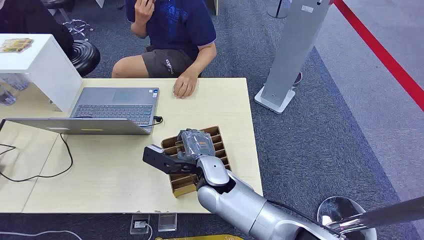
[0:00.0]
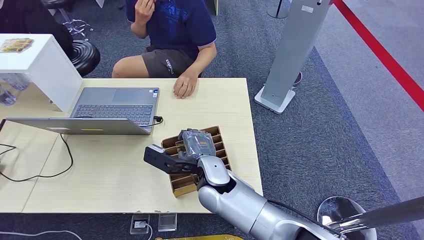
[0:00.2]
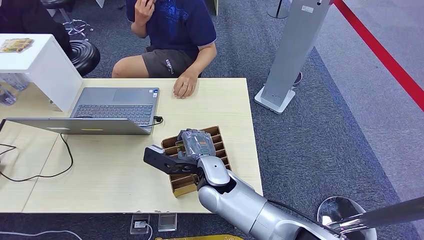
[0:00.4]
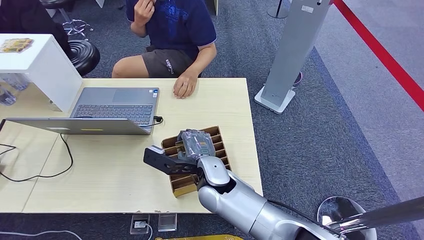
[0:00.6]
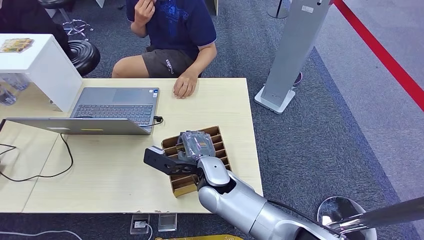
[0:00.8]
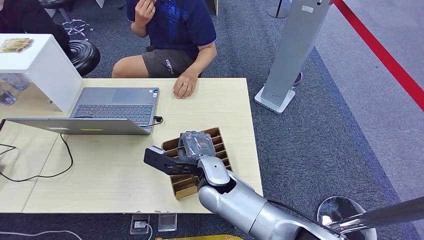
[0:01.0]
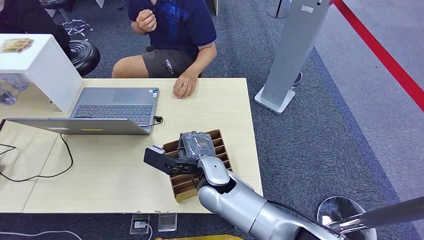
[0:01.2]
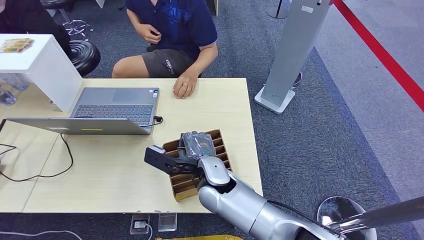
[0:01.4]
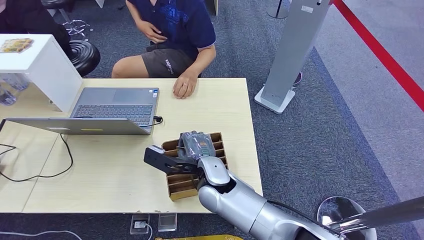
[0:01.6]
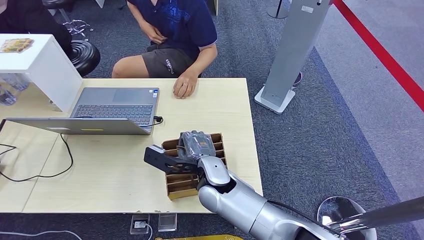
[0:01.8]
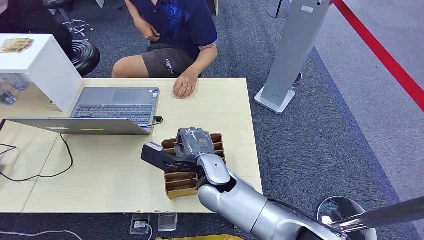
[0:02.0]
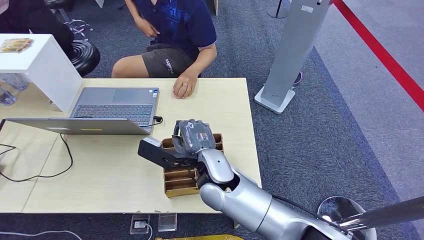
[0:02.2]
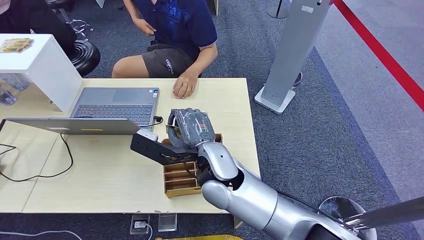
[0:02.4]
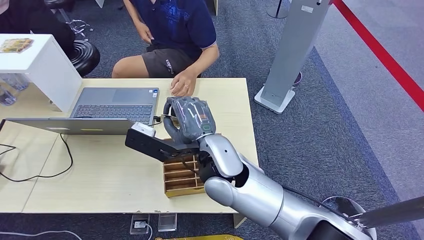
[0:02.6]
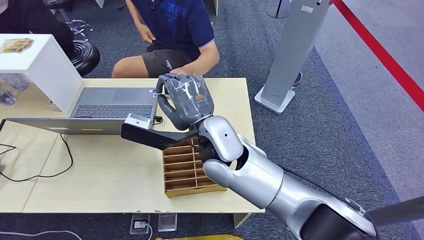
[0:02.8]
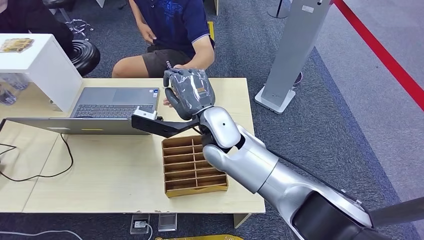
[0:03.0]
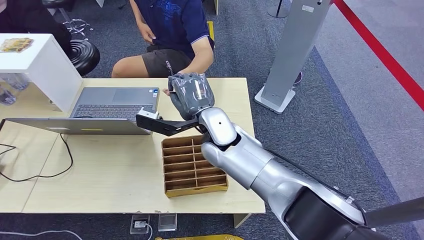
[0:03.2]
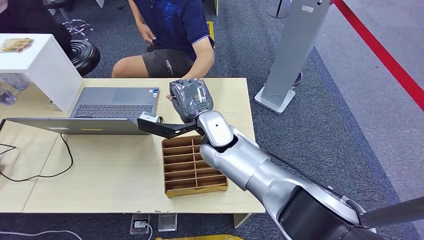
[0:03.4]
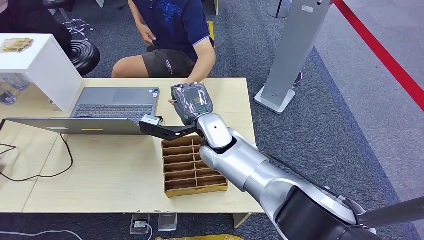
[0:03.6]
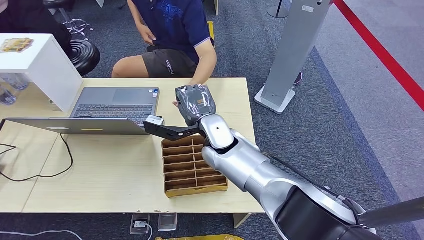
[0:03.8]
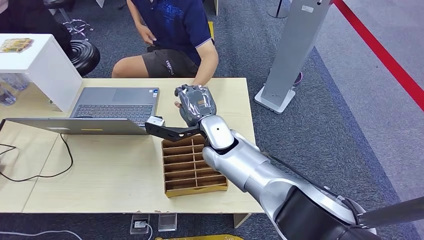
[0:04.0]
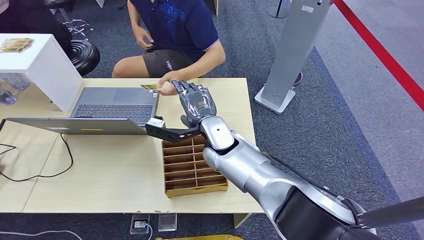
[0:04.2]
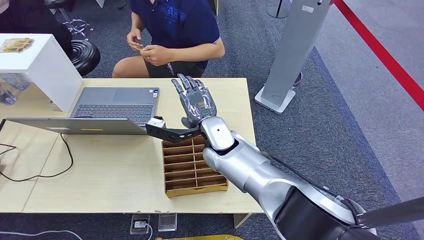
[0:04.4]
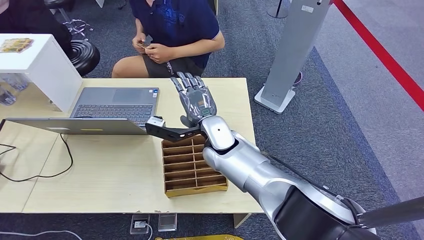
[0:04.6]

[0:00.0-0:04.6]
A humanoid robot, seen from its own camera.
Step, 0:00.0 to 0:02.0: Pick up the room card from the card holder.
Step, 0:02.6 to 0:04.6: Hand the room card to the target.
0:01.6 to 0:03.0: The right hand moves upward and forward, approximately 15 cm.
0:03.0 to 0:04.6: The right hand is displaced downward by about 5 cm.

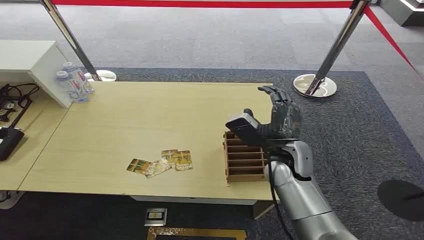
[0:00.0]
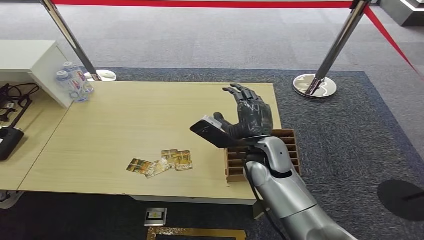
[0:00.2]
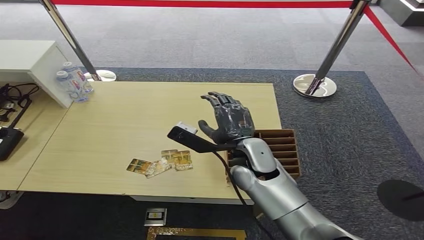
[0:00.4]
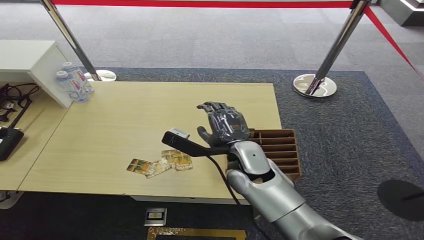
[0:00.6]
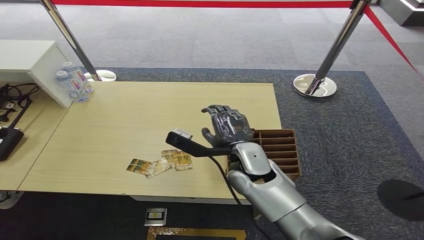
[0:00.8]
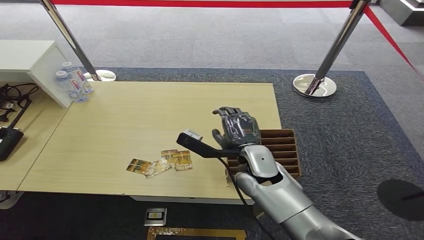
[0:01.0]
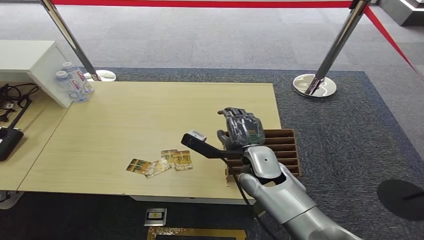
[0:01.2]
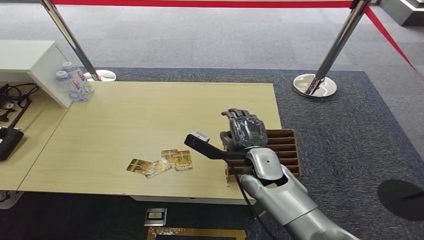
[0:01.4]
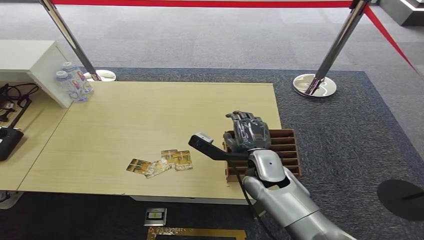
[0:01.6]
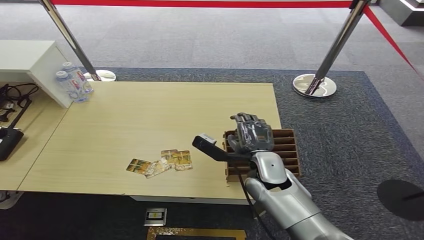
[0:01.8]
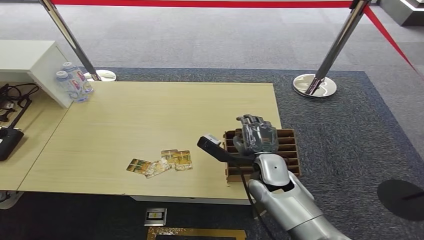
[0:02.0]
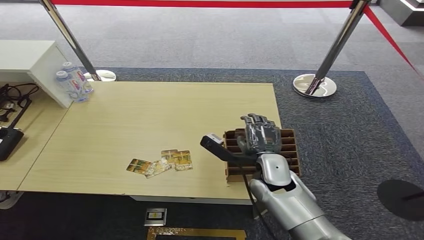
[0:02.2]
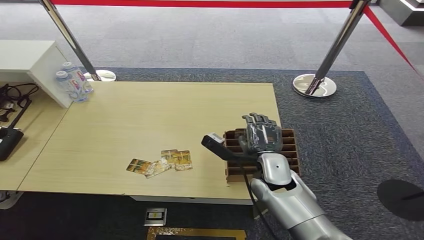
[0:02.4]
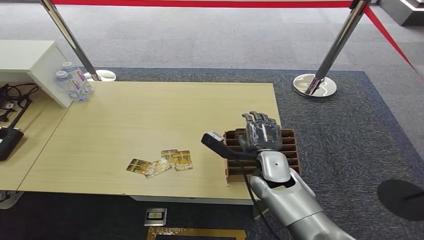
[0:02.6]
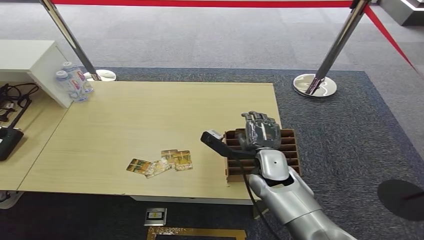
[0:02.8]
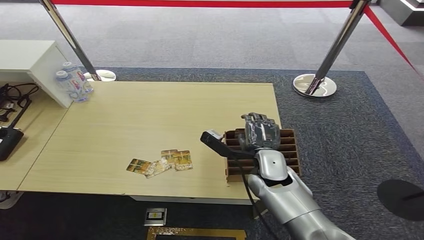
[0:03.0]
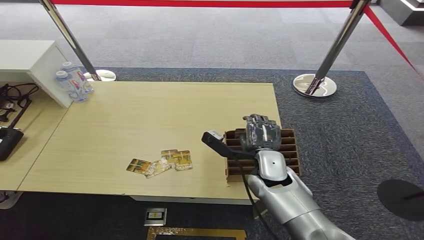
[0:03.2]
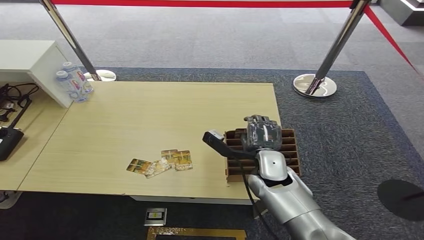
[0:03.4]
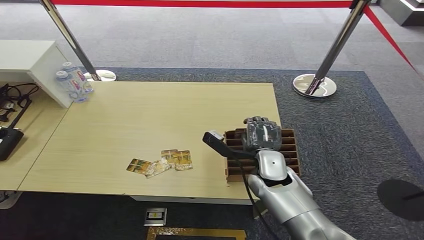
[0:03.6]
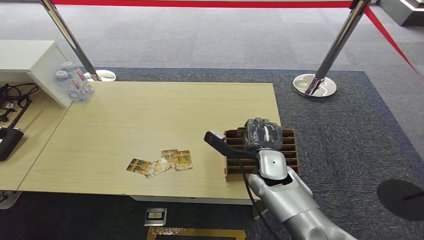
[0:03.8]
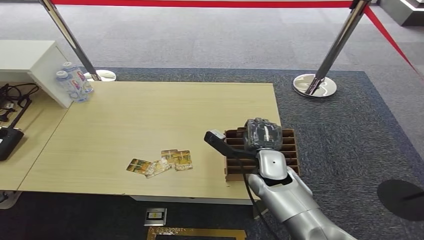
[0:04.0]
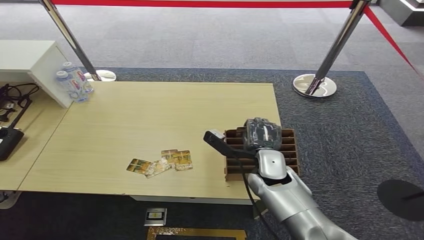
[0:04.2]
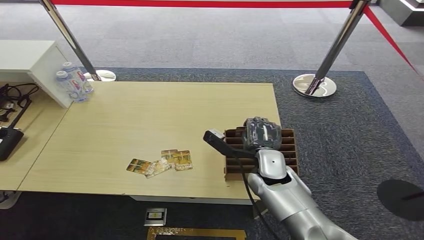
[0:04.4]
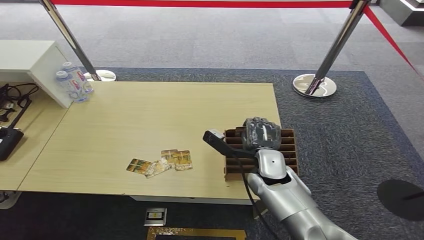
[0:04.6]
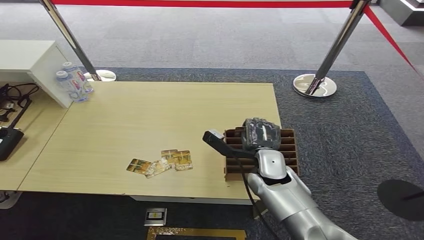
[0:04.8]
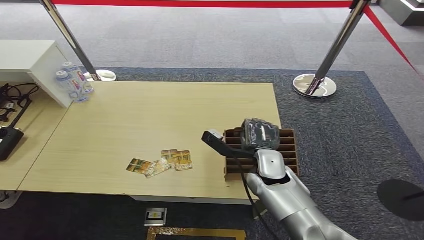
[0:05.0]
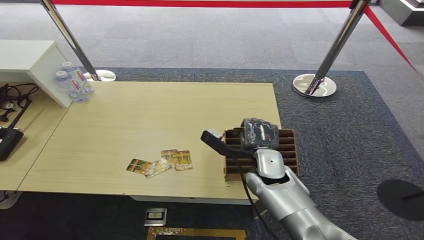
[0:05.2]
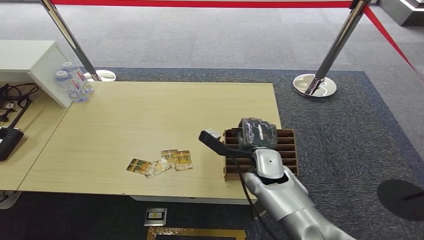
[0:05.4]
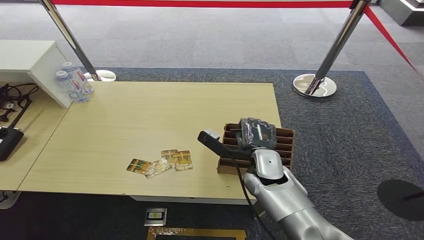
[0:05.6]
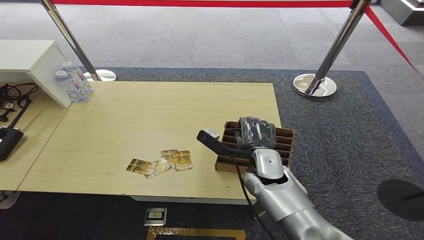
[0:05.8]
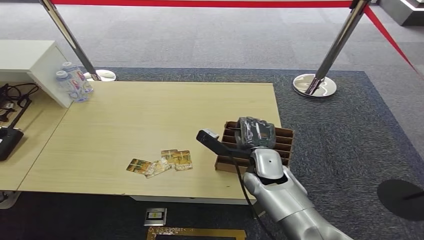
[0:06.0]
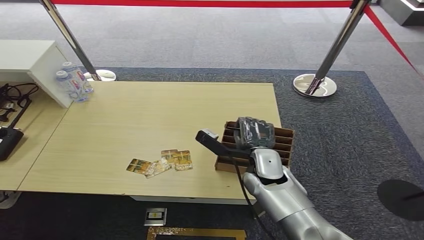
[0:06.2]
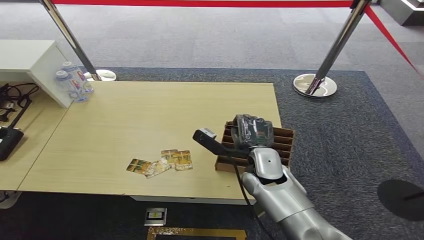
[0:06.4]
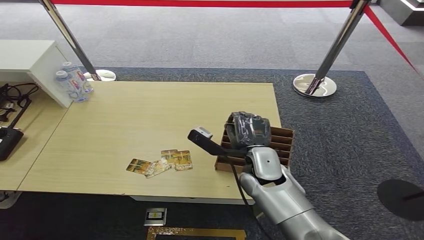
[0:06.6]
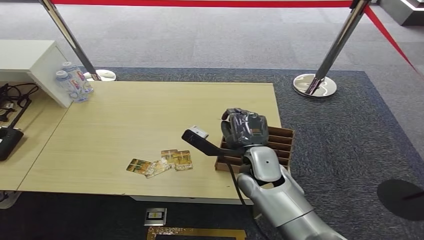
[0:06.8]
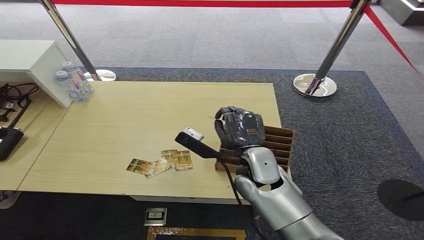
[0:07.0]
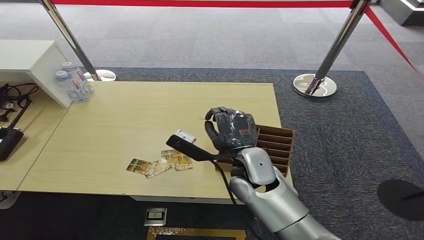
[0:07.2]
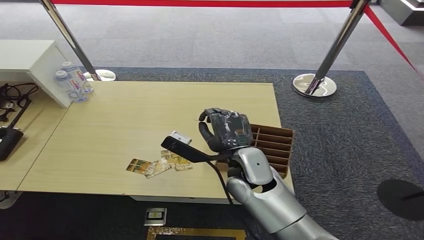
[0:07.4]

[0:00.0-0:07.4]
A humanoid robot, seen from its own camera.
Step, 0:00.0 to 0:07.4: Pick up the room card from the card holder.
0:01.4 to 0:03.0: The hands make only small movements.
0:03.0 to 0:04.4: Both hands stay put.
0:04.4 to 0:06.0: The hands make only small movements.
0:06.0 to 0:07.4: The right hand shifts roughly 5 cm upward.
